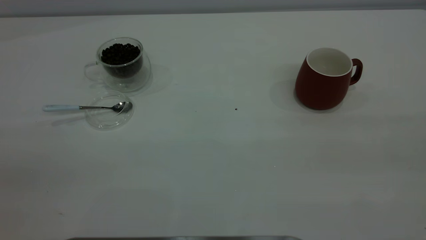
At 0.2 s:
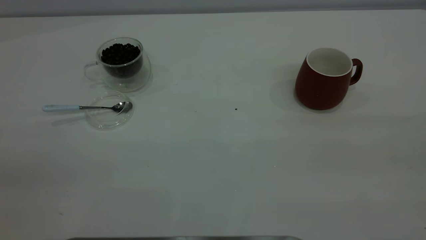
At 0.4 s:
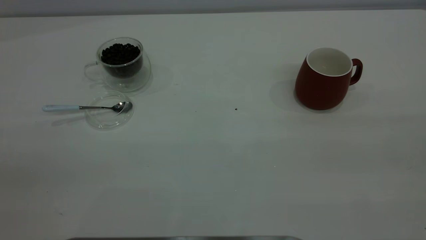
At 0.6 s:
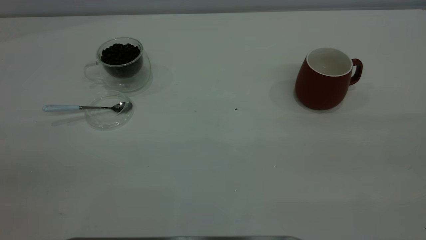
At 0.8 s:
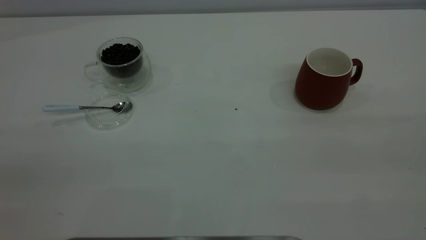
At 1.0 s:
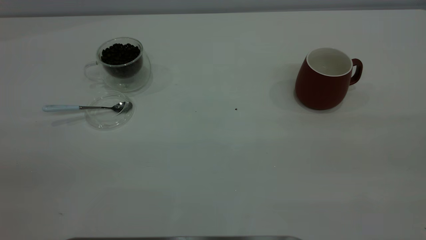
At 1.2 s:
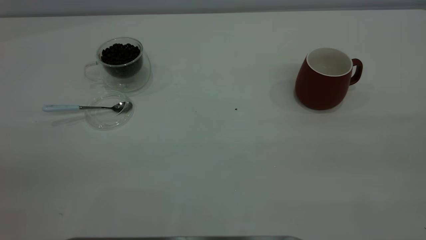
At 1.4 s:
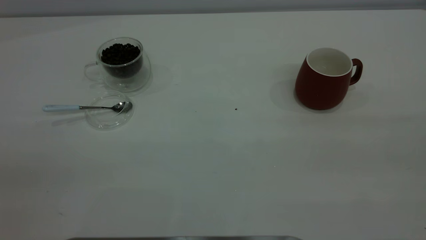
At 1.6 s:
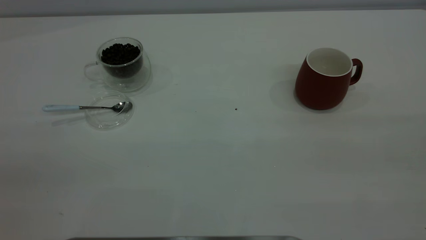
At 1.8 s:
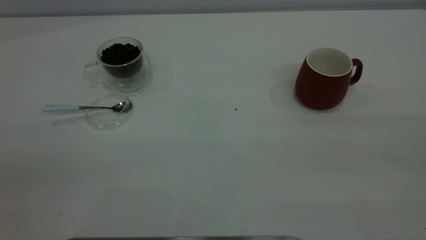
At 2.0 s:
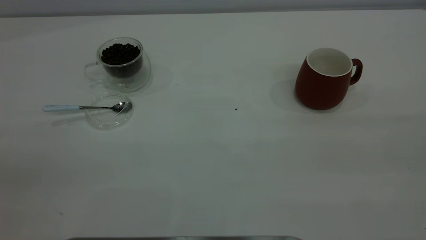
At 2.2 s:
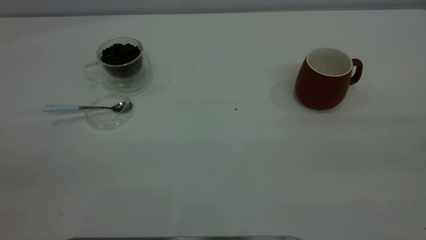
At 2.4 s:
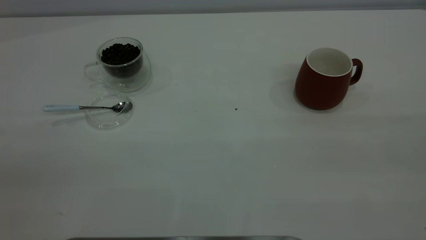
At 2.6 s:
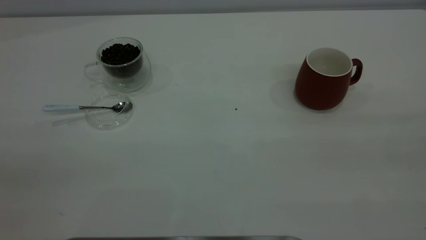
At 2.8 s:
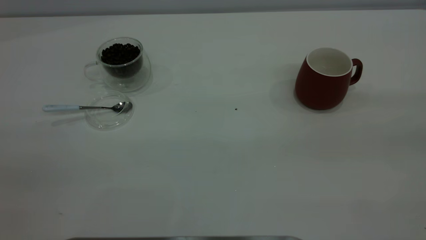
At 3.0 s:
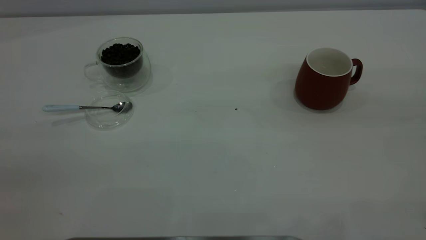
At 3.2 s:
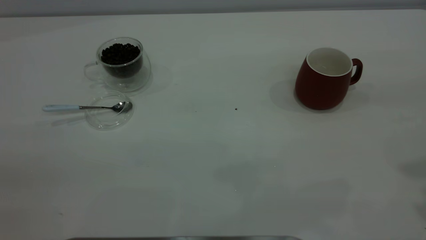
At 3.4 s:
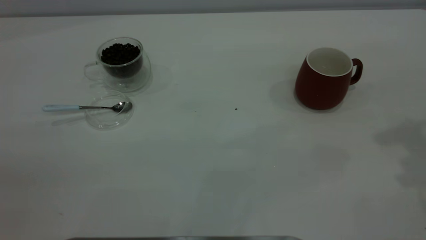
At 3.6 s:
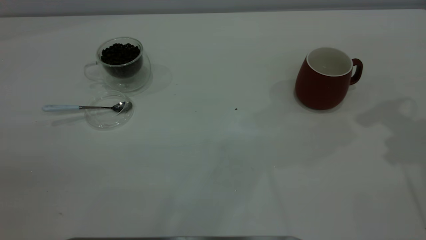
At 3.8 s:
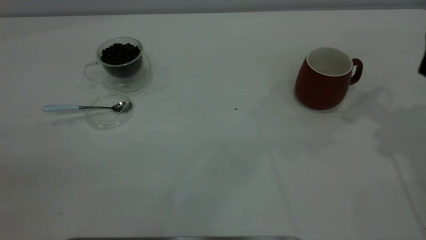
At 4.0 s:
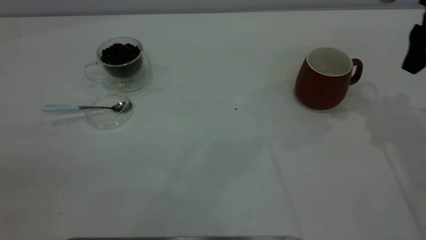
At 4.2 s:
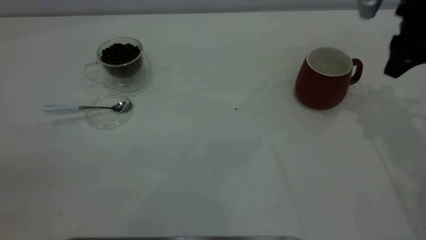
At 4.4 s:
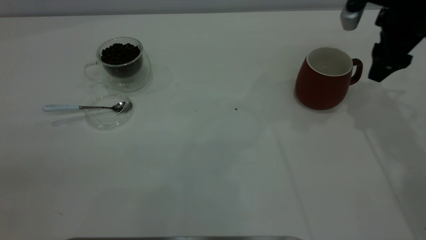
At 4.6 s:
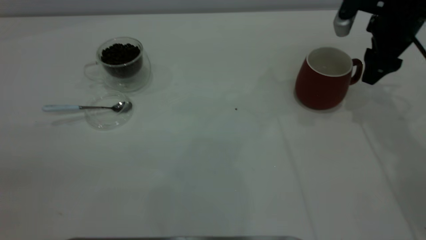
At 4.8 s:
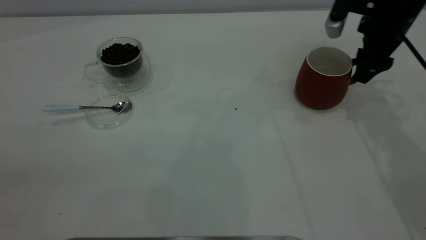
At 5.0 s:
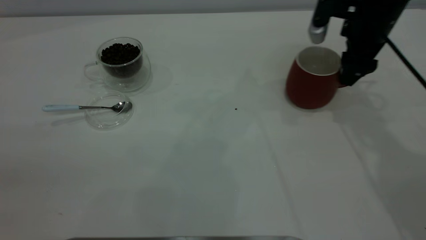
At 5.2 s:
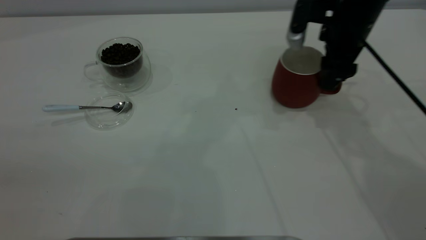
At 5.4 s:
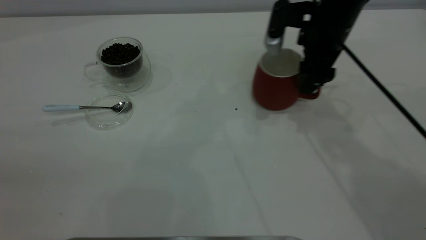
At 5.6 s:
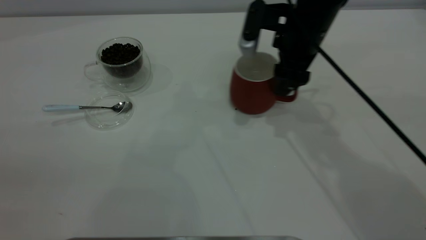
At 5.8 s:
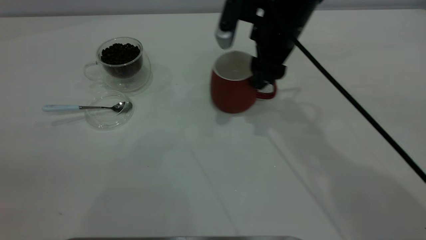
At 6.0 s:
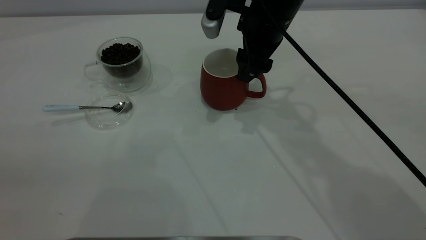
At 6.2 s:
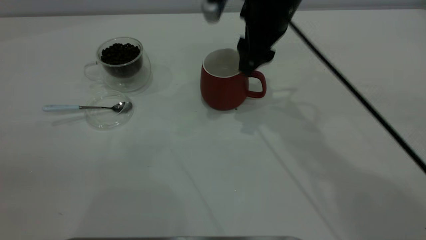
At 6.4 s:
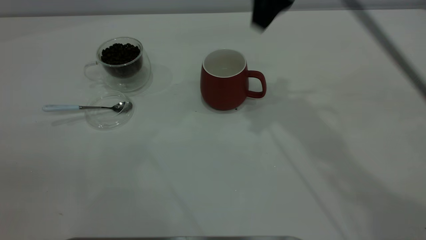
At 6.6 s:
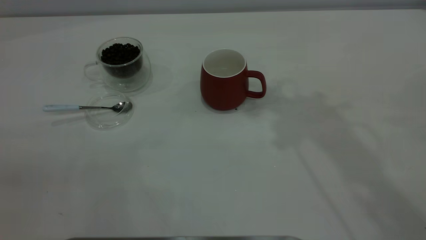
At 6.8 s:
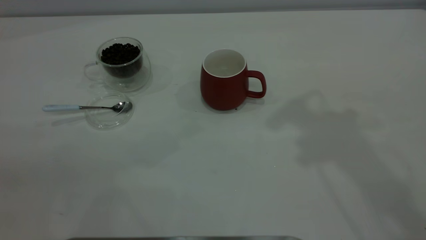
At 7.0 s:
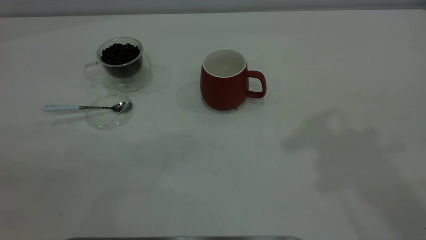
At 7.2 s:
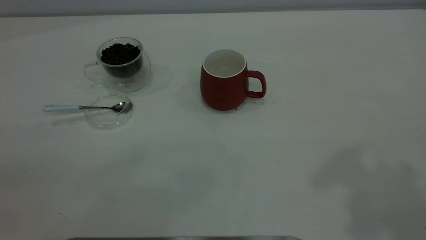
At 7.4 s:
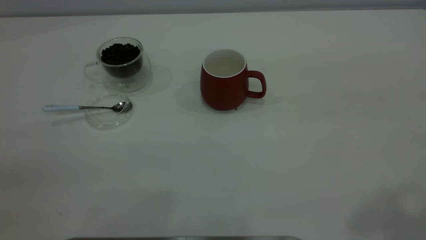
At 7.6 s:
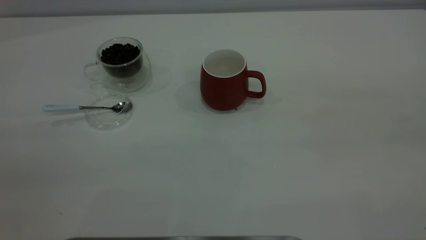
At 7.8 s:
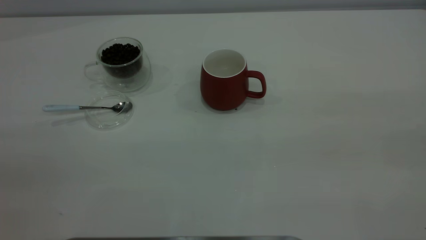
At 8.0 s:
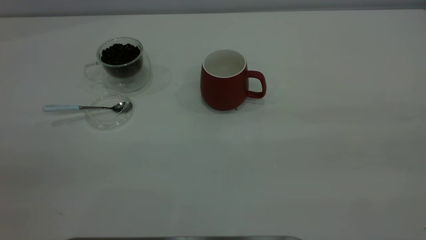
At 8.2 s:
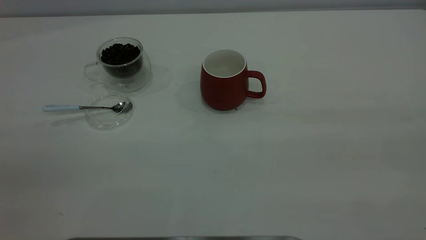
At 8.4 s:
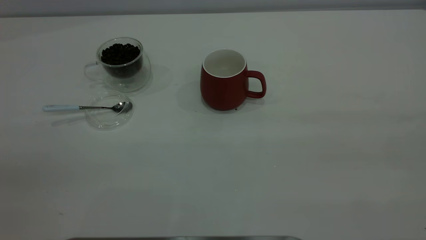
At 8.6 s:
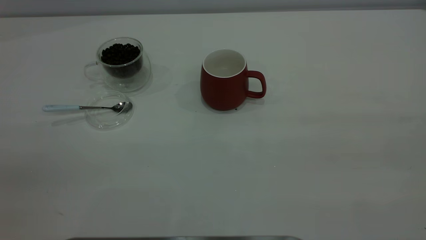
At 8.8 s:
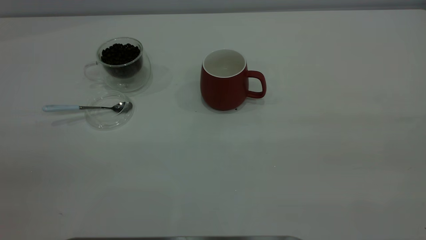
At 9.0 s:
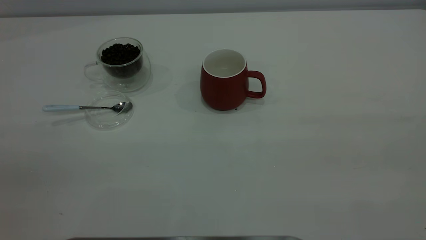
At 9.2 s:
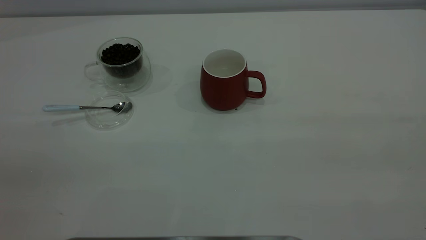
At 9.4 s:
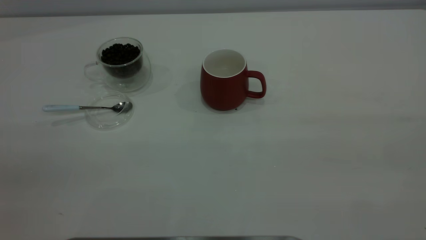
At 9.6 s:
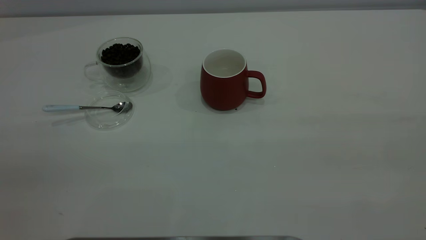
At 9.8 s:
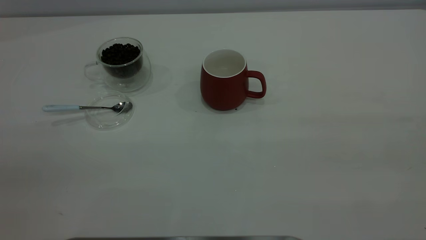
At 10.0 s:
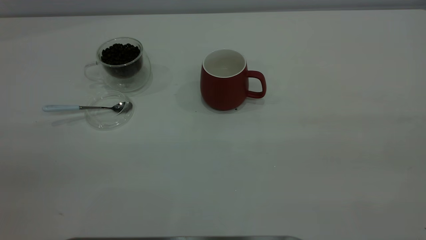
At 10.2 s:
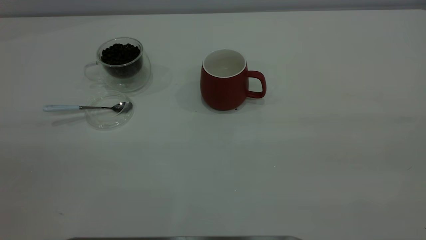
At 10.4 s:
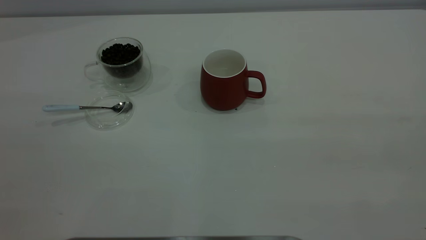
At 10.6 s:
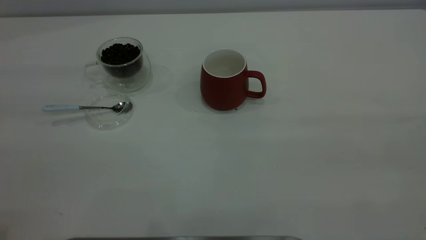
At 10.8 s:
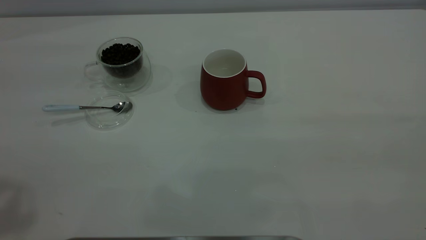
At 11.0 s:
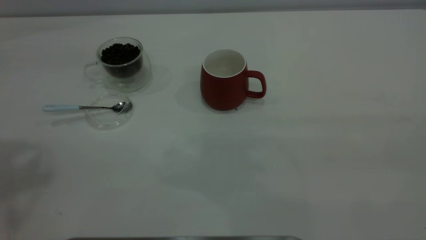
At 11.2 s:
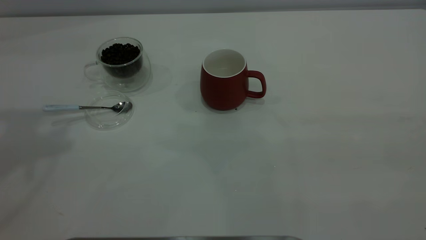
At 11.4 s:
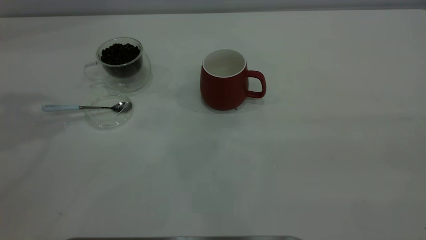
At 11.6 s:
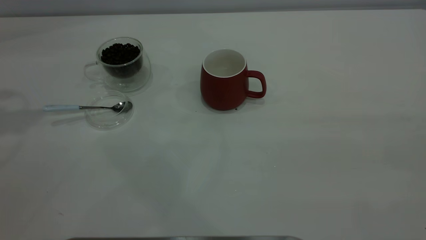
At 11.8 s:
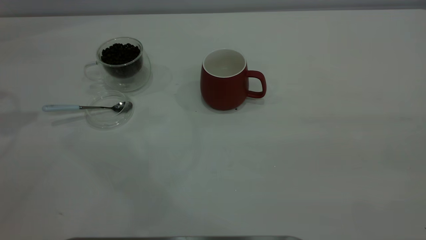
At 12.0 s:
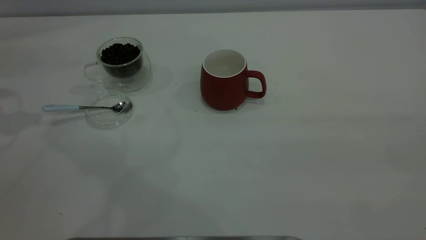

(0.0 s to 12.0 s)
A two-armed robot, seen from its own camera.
Task of the whole recording: the right gripper place the red cup in the center of the table, the left gripper take the blue spoon from the cup lid and scoop out the coffee beans from the coffee cup and put them into the red cup, the left gripper put the spoon back into the cup lid.
Step, 0.0 s - 6.2 s: Move the cup to the center of view.
0.0 s - 1.6 s: Both grippers stay put.
3.0 s - 4.4 s: The right gripper moves forward and downward, some 35 cm.
4.4 s - 6.0 s: The right gripper travels to the left by some 20 cm.
6.0 s - 7.6 s: The right gripper moves backward, upward and to the right, roughly 50 cm.

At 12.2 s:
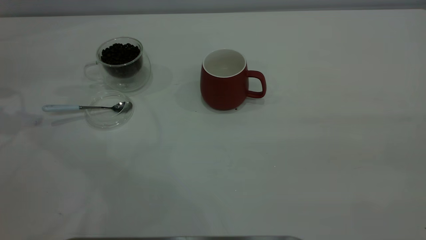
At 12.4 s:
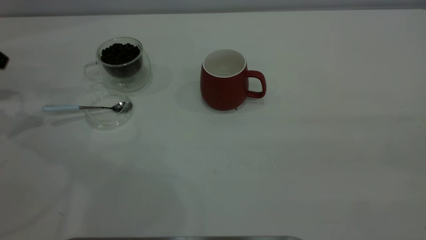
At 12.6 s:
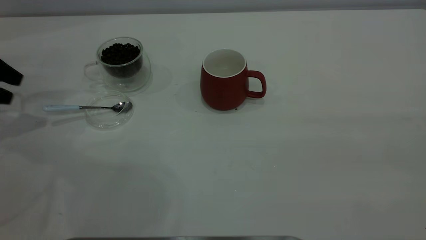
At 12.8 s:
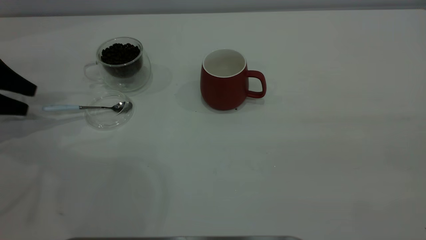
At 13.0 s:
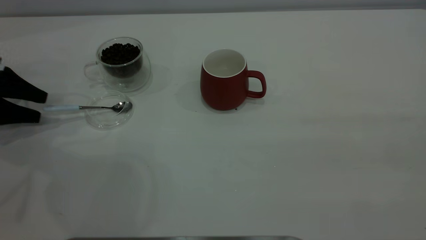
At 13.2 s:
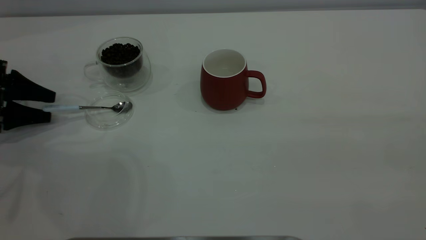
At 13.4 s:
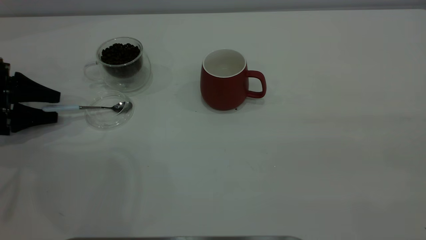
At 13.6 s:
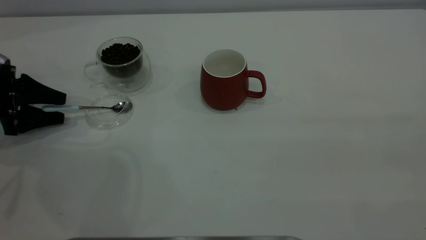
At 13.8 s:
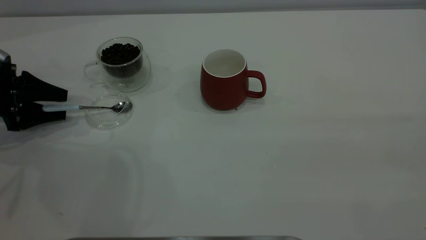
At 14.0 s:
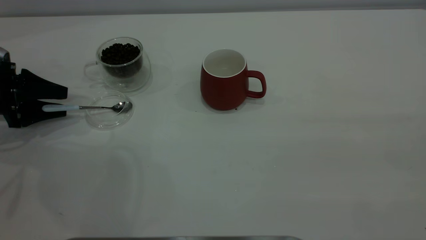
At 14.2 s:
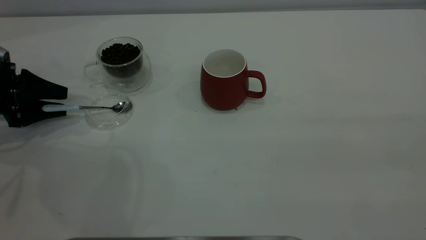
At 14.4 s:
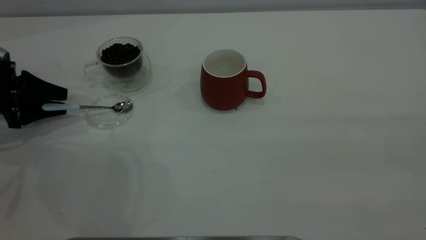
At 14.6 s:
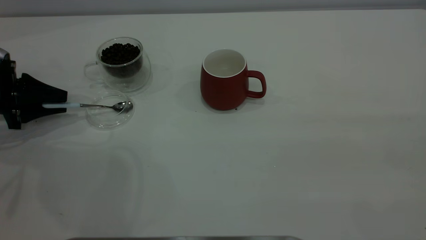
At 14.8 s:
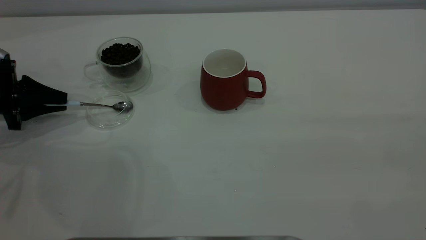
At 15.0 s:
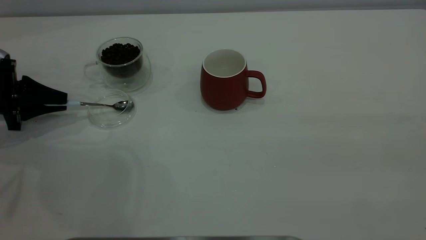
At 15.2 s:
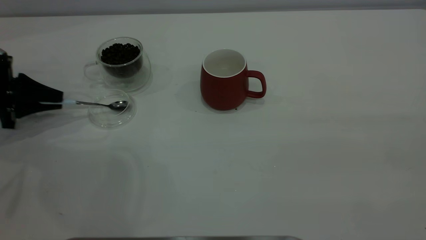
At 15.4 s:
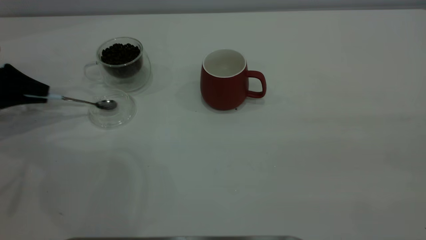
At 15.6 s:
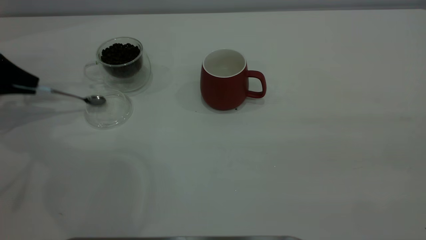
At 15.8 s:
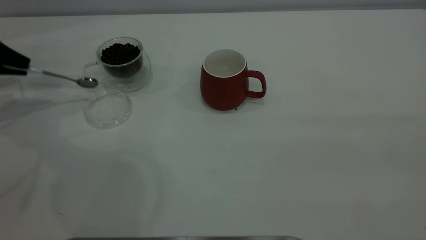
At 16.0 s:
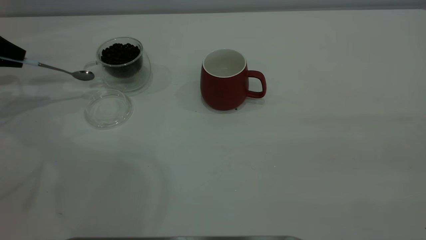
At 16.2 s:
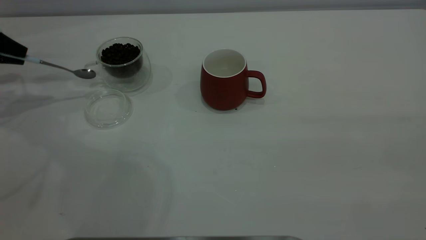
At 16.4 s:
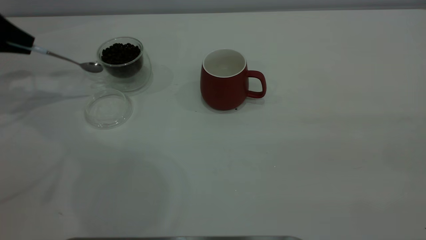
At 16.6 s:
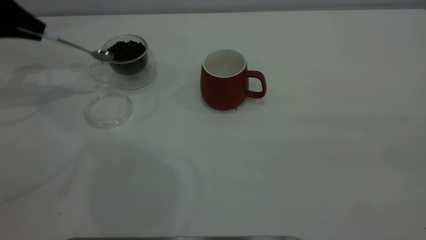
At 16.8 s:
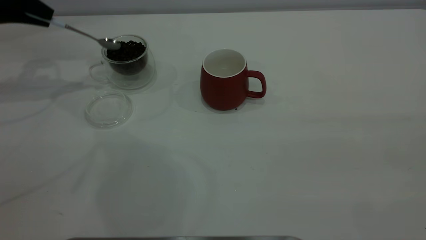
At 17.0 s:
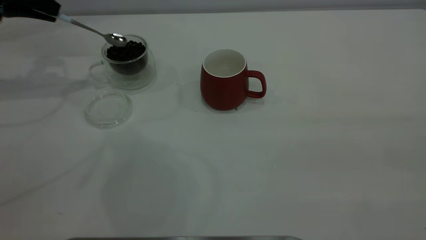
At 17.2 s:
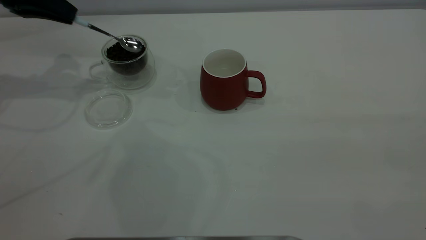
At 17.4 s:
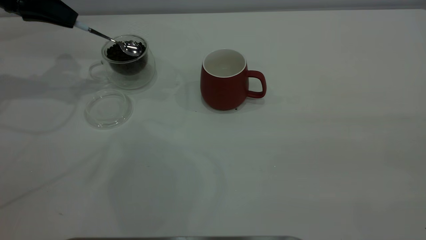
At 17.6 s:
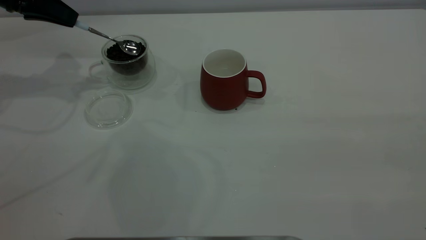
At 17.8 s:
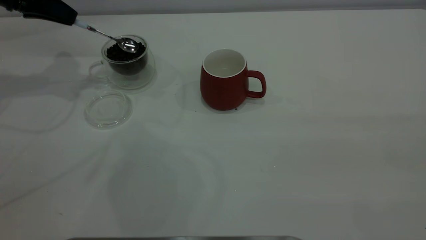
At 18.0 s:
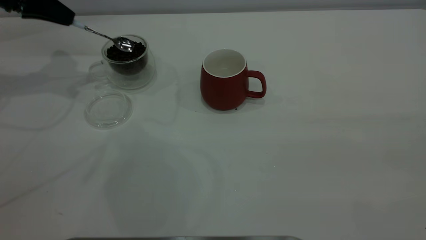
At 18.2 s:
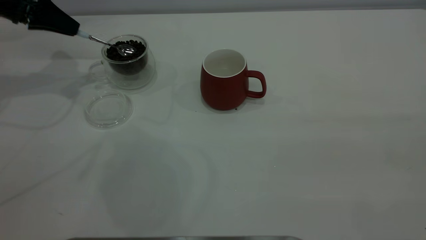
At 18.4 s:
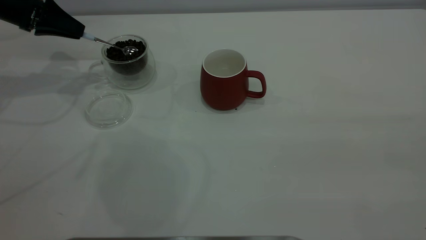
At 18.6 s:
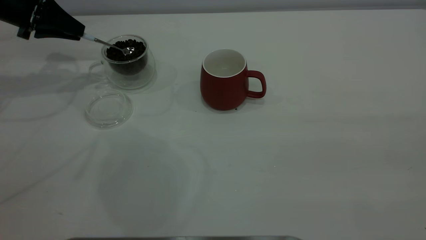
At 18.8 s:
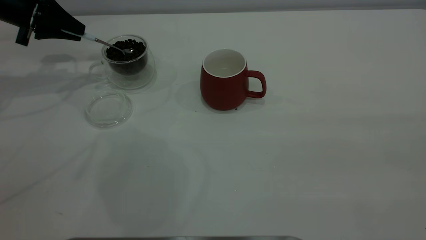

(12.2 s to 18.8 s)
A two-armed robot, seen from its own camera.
Task of the whole recording: the right gripper place the red cup in the center of the table, the left gripper take the blue spoon from the cup lid and scoop out the coffee beans from the coffee cup and put them into the red cup, the left gripper put the spoon back into the cup lid.
Step, 12.2 s - 15.6 s: Pick up the spoon.
12.2 s - 13.8 s: The left gripper goes approximately 15 cm downward.
13.8 s - 15.4 s: The left gripper closes up.
15.4 s - 17.2 s: The left gripper moves upward, forward and to the right, about 15 cm.
